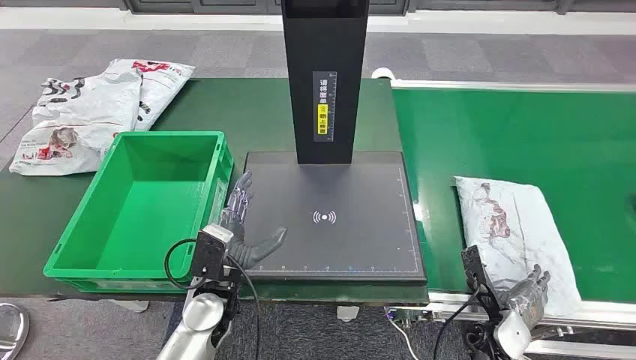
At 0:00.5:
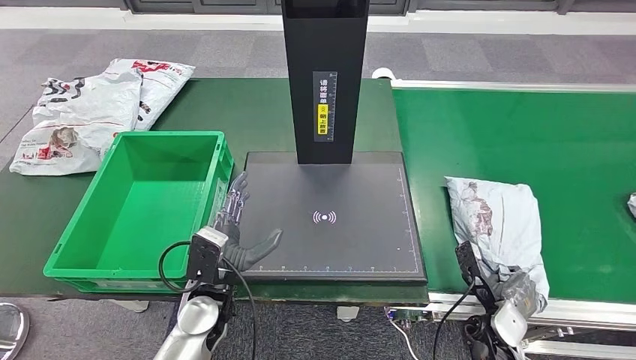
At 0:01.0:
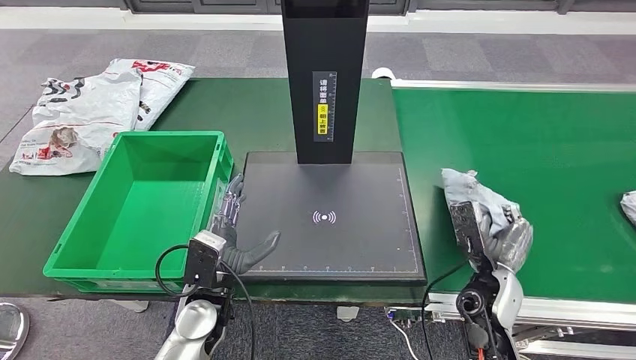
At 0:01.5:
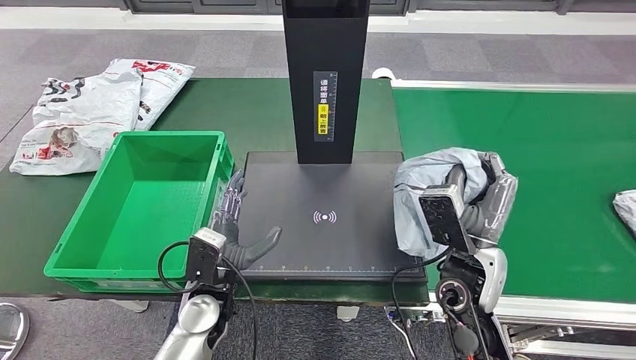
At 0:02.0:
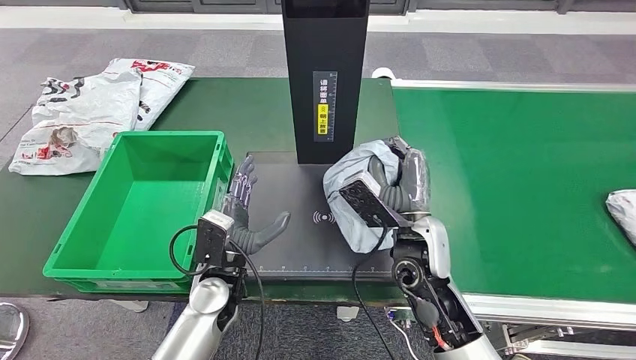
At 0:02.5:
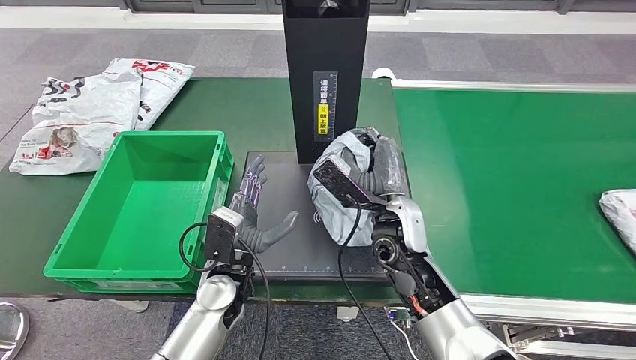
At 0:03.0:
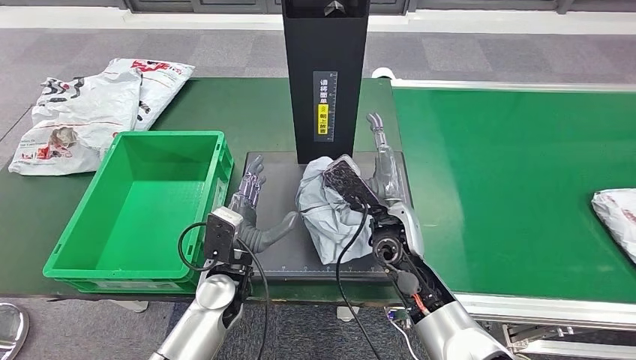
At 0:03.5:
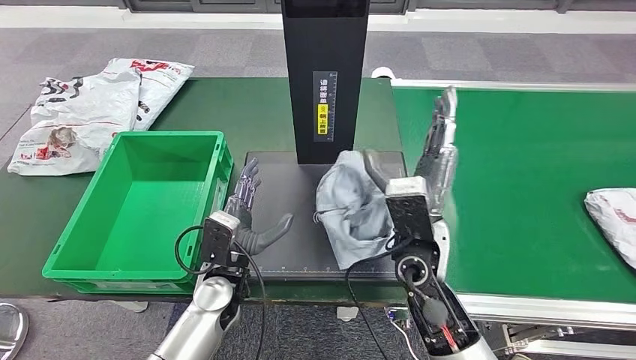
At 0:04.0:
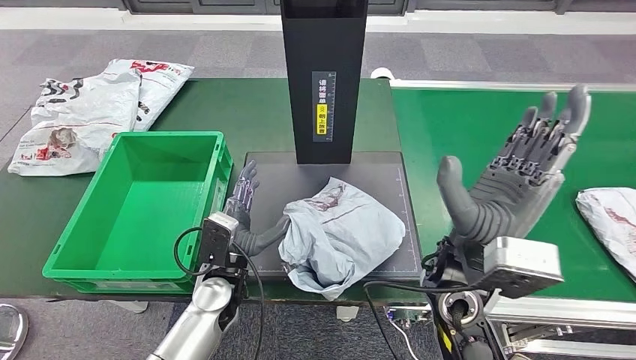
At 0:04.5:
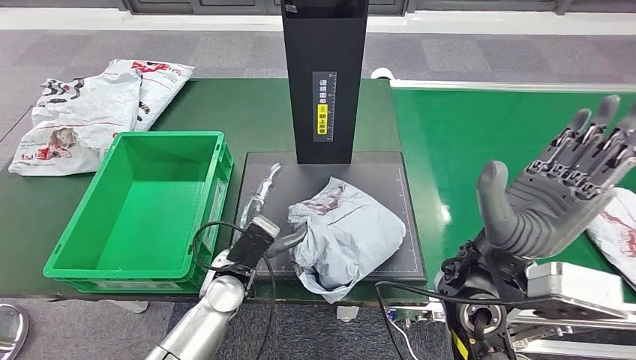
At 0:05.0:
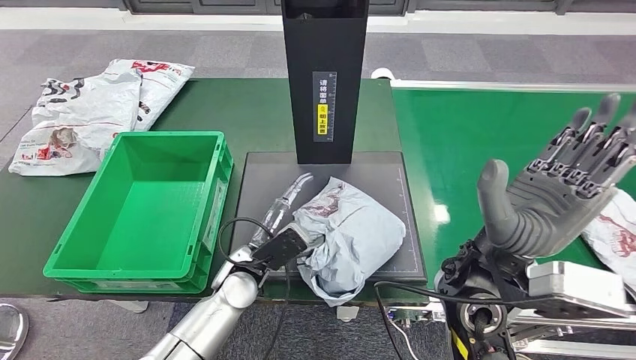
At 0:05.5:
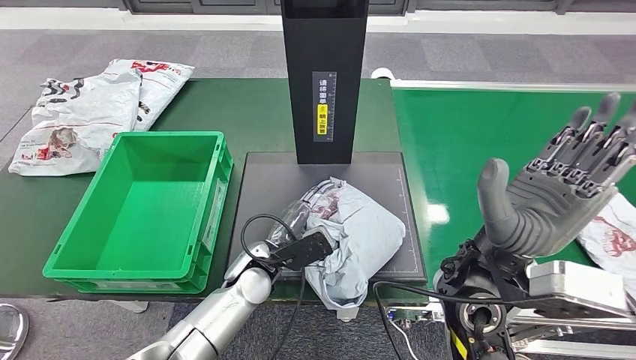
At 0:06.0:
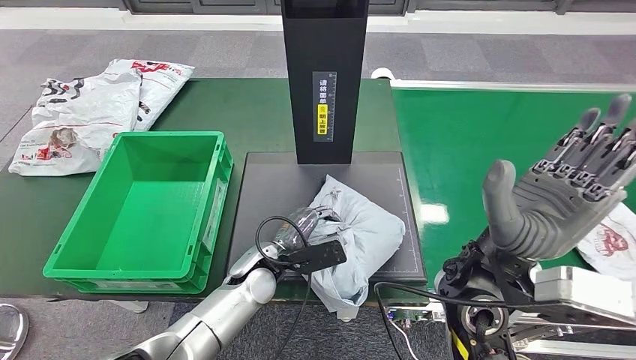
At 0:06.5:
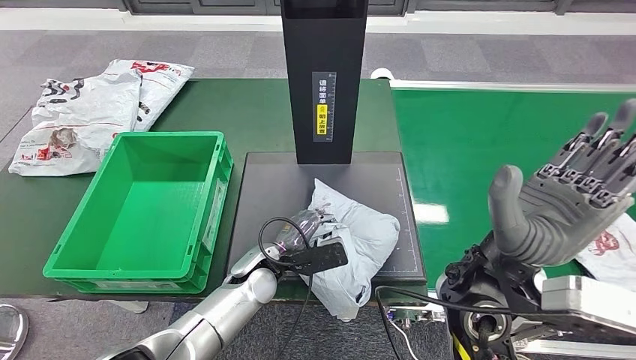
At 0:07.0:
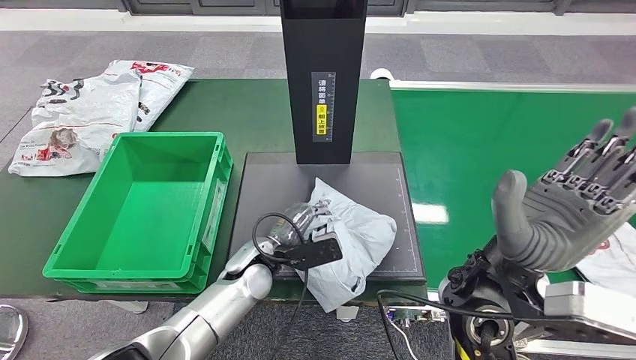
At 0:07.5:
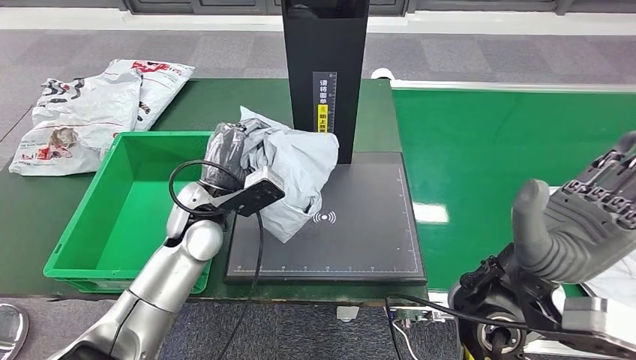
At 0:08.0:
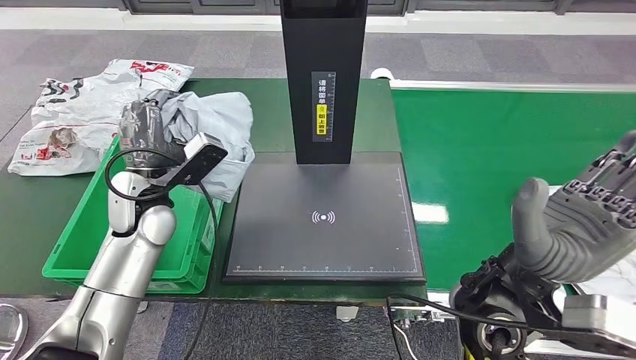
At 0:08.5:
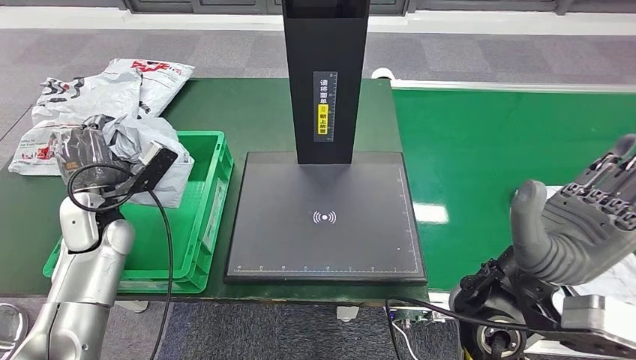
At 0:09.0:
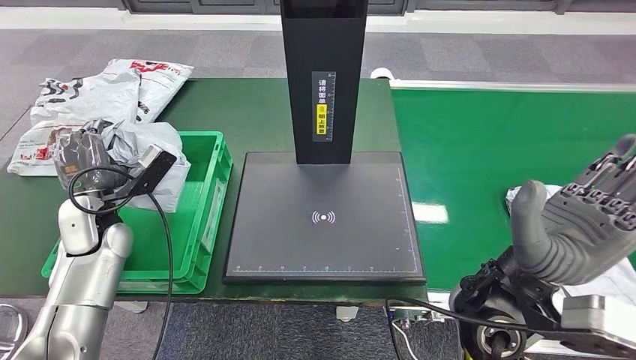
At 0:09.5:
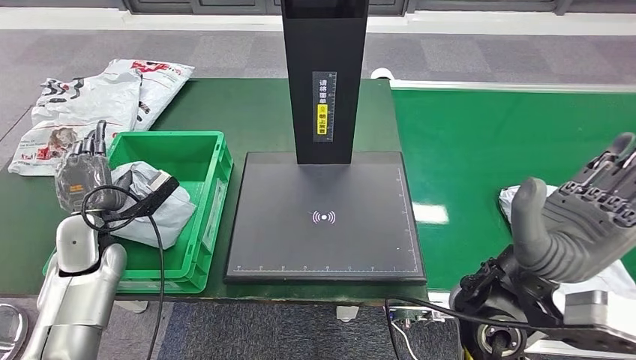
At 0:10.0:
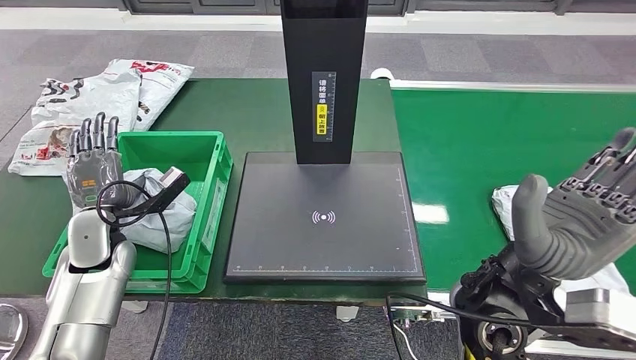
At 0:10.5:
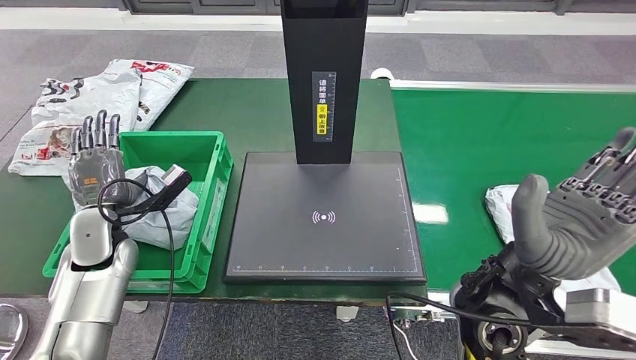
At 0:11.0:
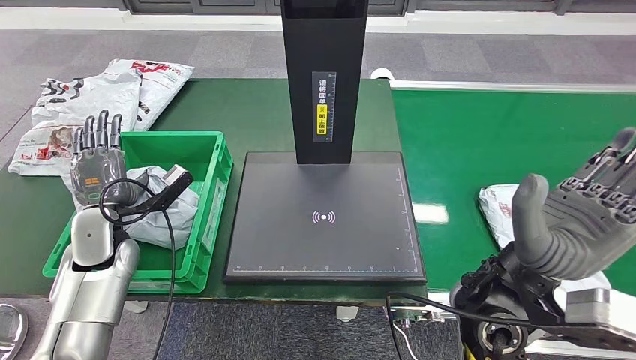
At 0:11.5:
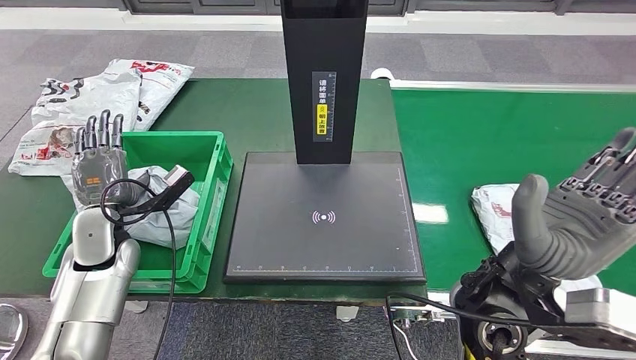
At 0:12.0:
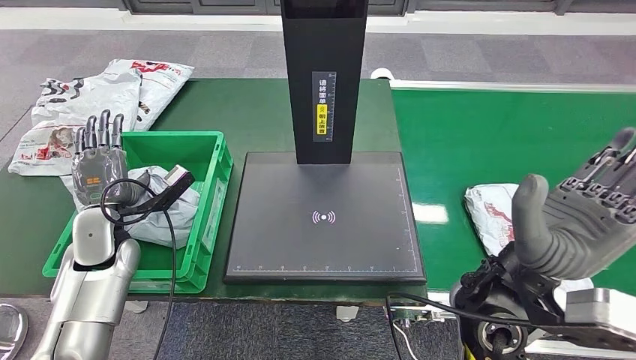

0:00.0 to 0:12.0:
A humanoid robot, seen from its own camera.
Step, 0:00.0 to 0:01.5: Take the parcel off the conveyor belt.
Step, 0:02.0 to 0:04.0: Place the parcel onto the inbound machine.
Step, 0:04.5 to 0:07.5: Pick up the parcel from the inbound machine.
0:02.0 to 0:04.0: The right hand goes roughly 5 cm upward.
0:08.0 to 0:10.0: The left hand shifts some 10 cm to the left and downward.
0:10.0 to 0:12.0: Neither hand changes place.

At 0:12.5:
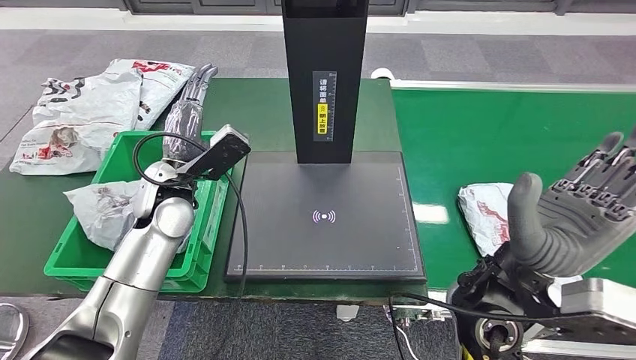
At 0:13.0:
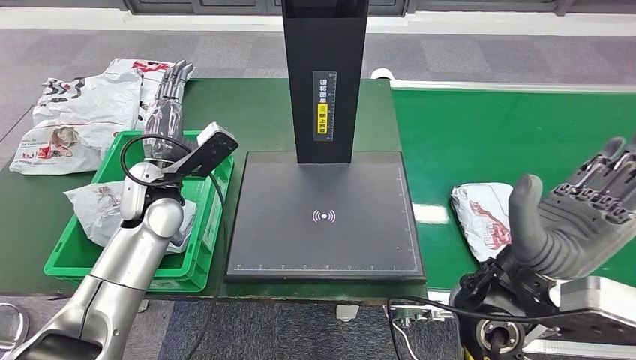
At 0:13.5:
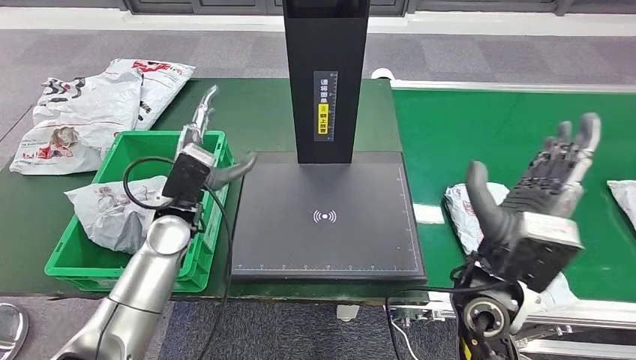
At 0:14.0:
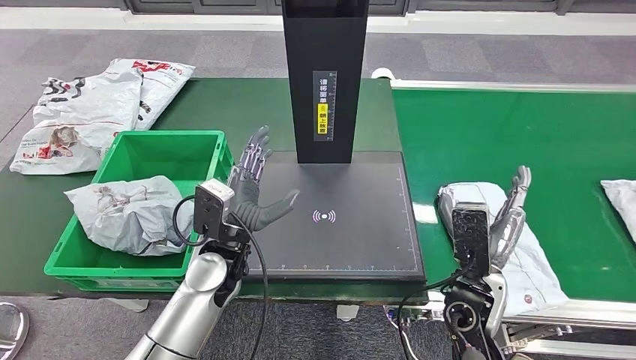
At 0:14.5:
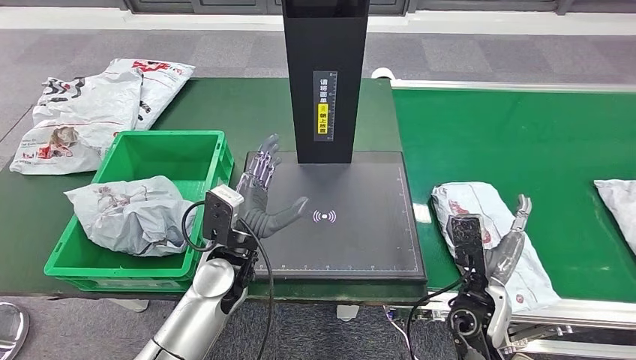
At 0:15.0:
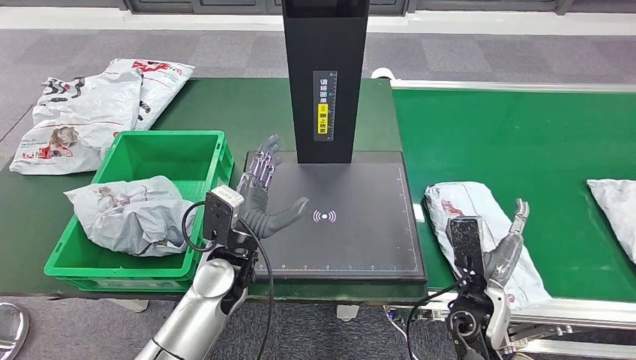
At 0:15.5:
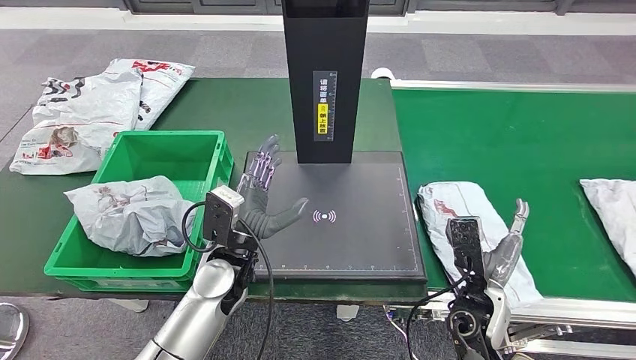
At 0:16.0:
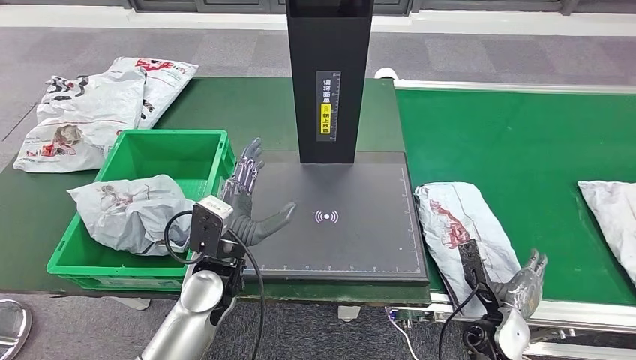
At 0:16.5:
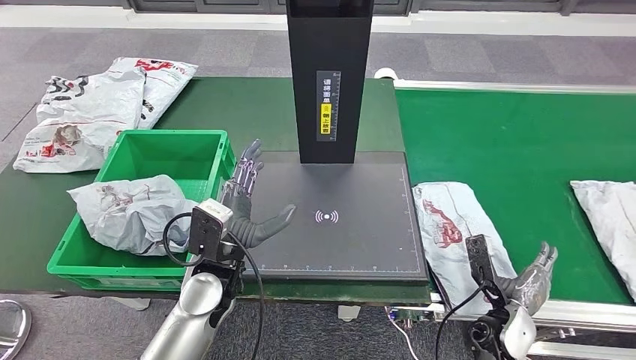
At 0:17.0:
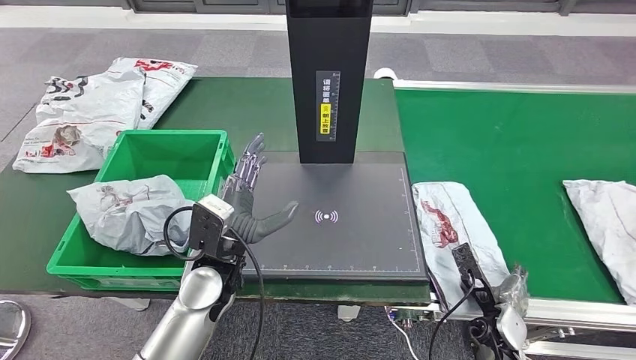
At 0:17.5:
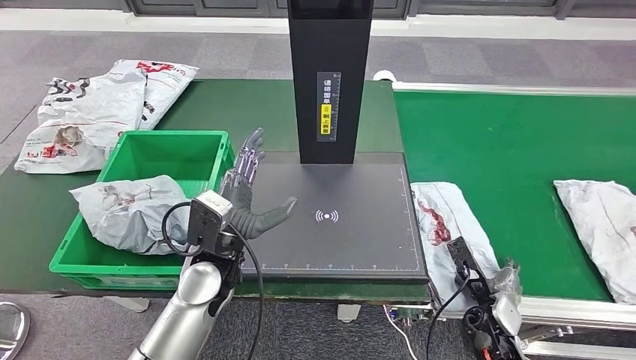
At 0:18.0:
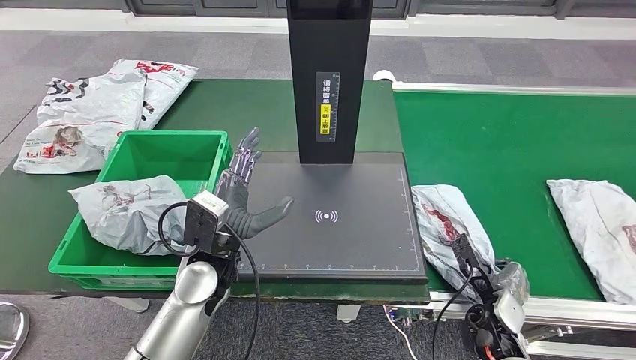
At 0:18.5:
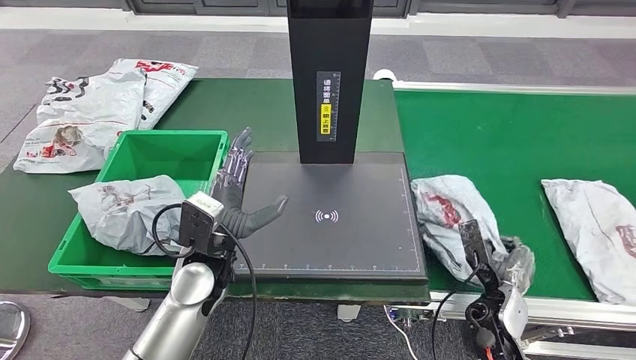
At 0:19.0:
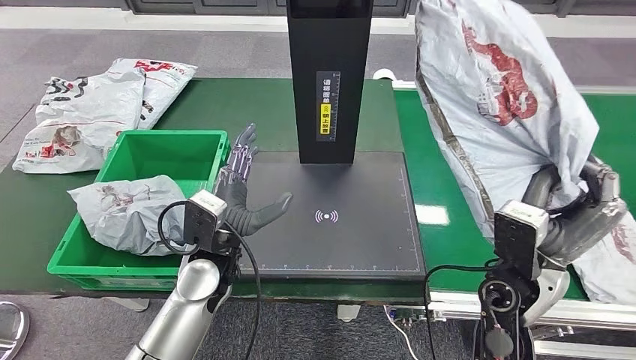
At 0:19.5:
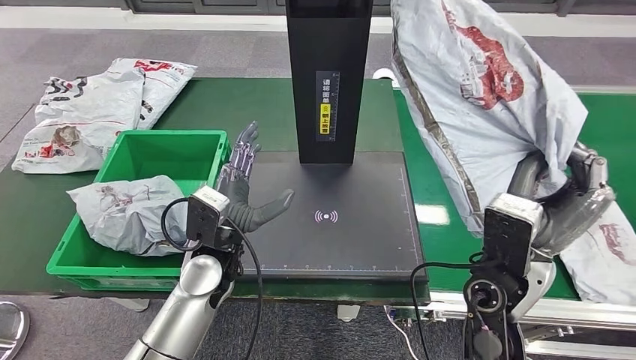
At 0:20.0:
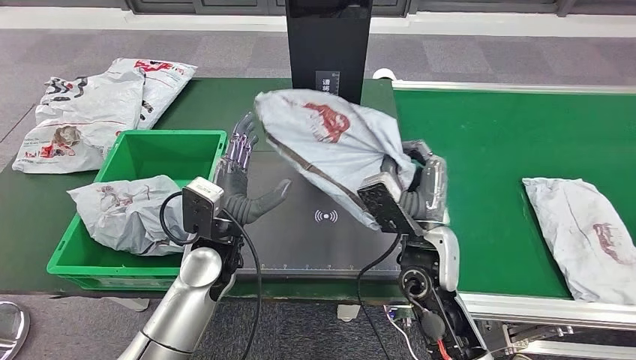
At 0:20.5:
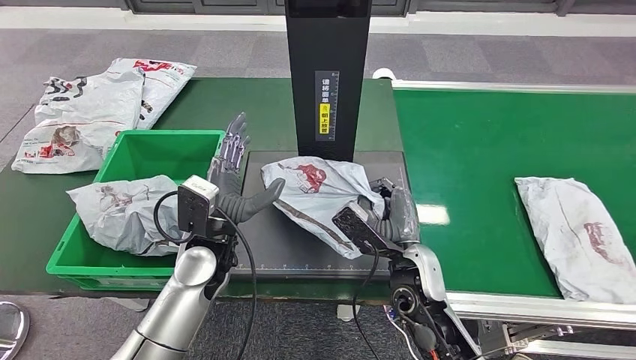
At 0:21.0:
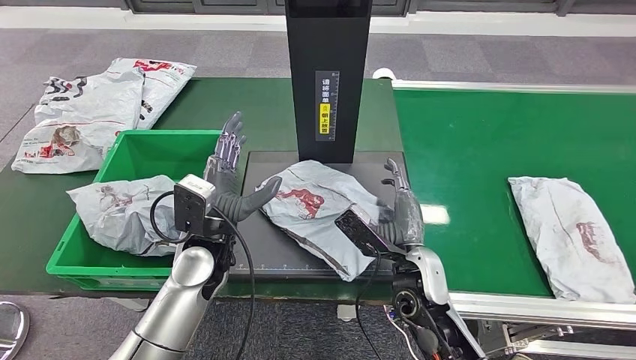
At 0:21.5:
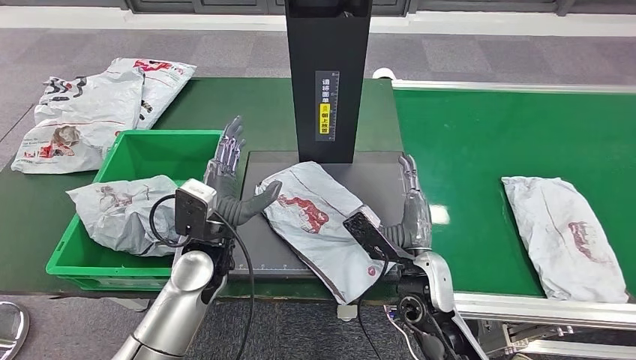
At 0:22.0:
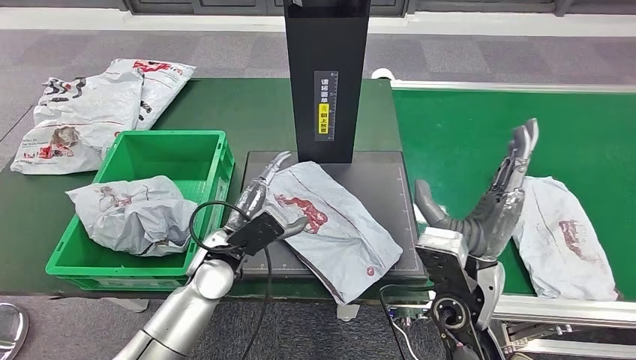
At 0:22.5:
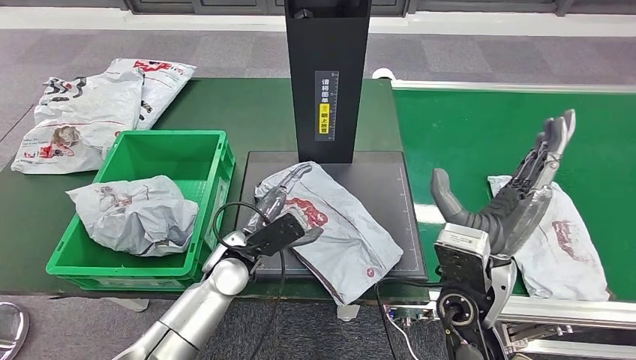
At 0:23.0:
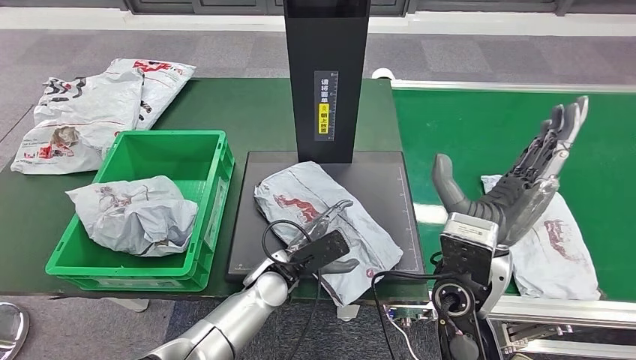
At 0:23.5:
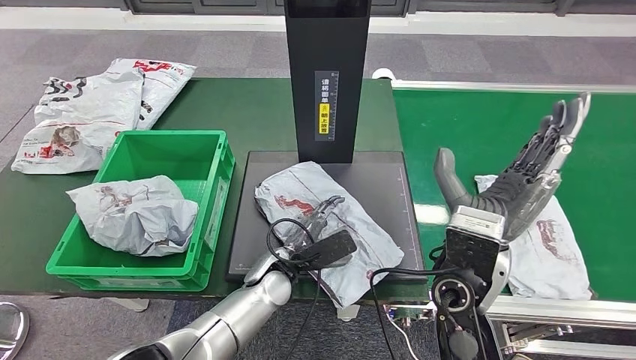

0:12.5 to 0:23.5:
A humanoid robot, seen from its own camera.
Step, 0:16.5 to 0:18.5: Pick up the parcel from the conveyor belt.
Step, 0:19.0 to 0:22.0: Place the parcel onto the inbound machine.
